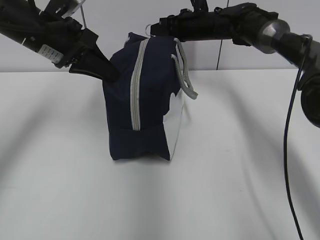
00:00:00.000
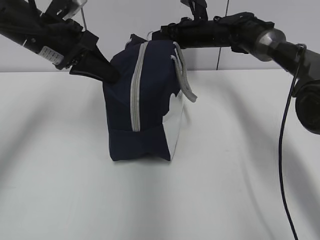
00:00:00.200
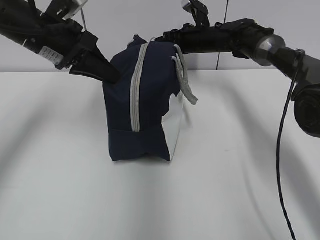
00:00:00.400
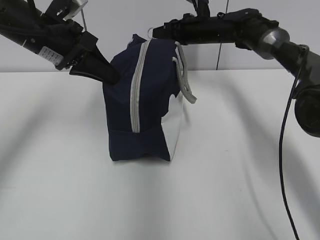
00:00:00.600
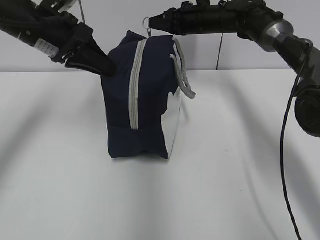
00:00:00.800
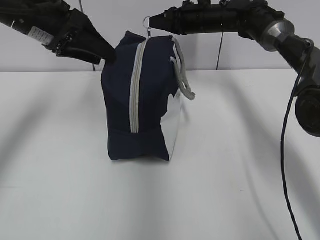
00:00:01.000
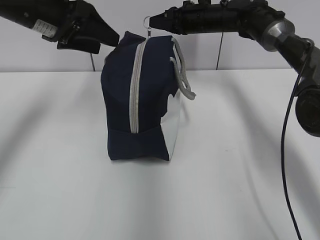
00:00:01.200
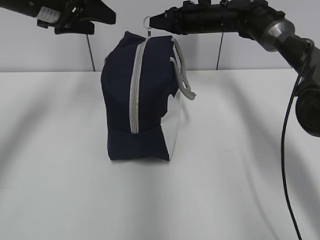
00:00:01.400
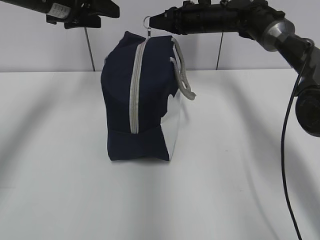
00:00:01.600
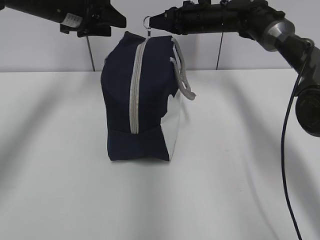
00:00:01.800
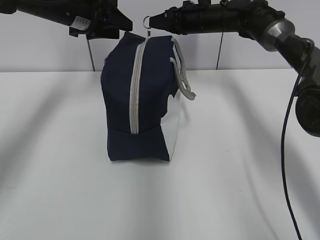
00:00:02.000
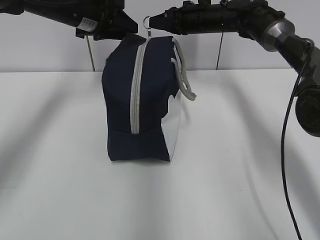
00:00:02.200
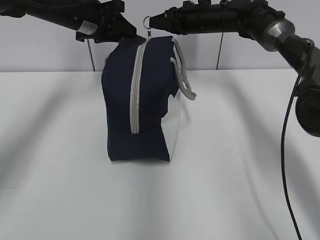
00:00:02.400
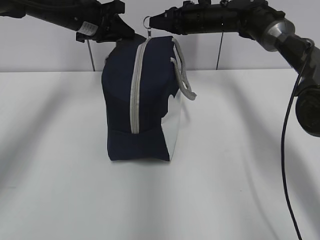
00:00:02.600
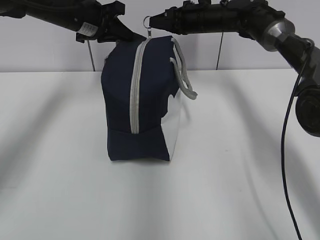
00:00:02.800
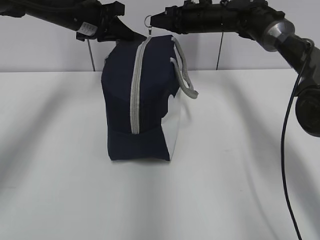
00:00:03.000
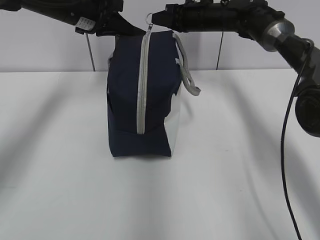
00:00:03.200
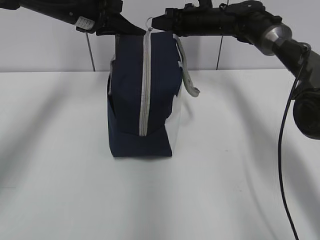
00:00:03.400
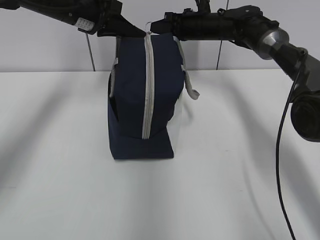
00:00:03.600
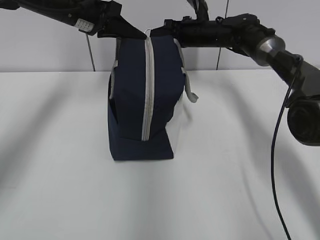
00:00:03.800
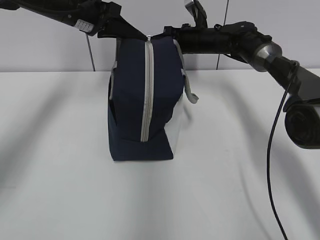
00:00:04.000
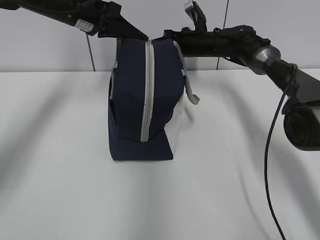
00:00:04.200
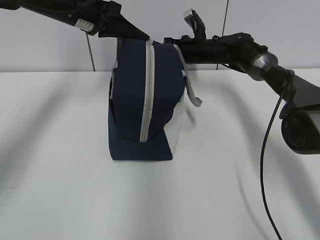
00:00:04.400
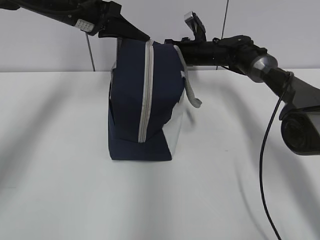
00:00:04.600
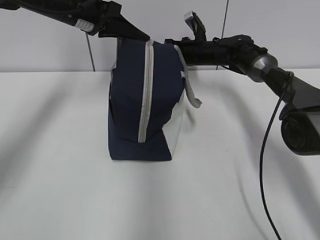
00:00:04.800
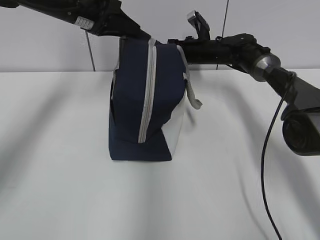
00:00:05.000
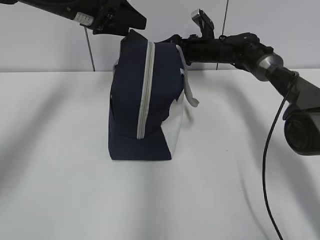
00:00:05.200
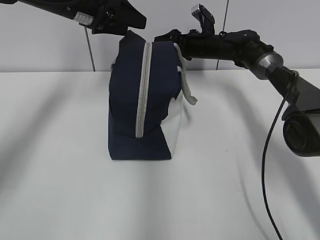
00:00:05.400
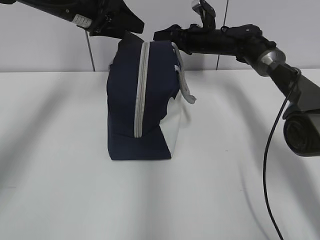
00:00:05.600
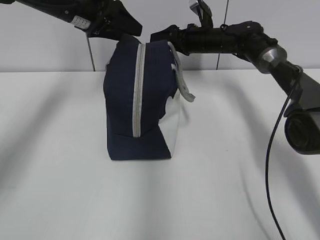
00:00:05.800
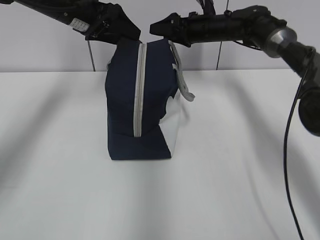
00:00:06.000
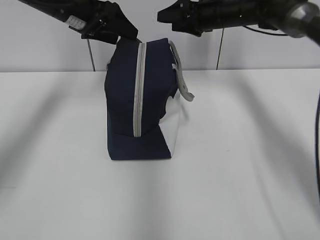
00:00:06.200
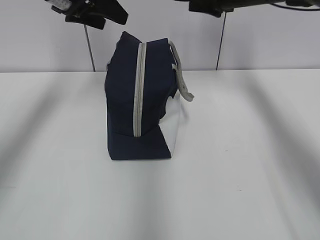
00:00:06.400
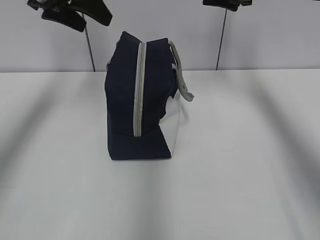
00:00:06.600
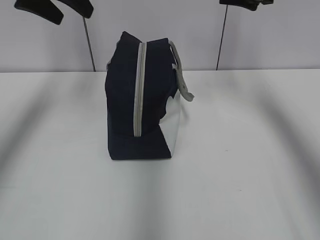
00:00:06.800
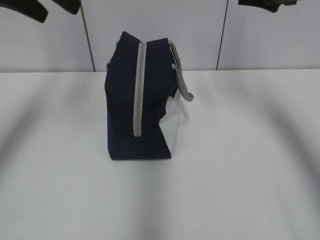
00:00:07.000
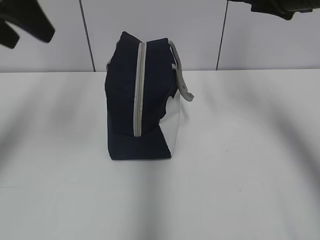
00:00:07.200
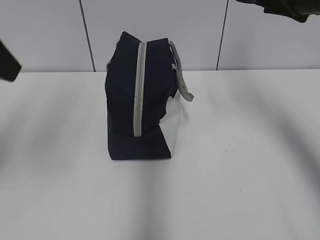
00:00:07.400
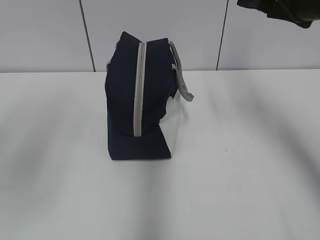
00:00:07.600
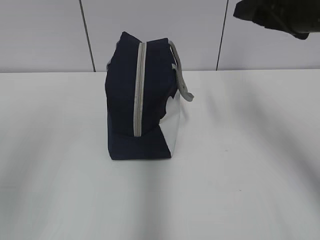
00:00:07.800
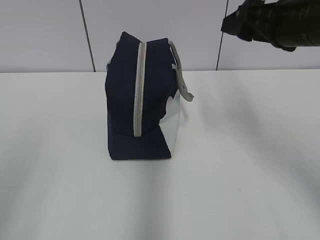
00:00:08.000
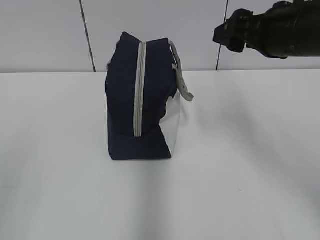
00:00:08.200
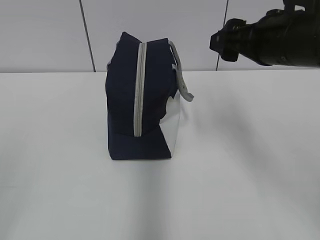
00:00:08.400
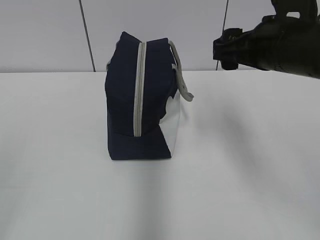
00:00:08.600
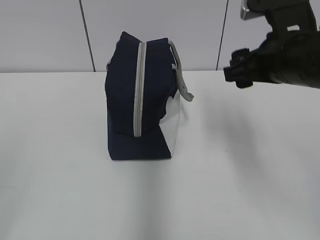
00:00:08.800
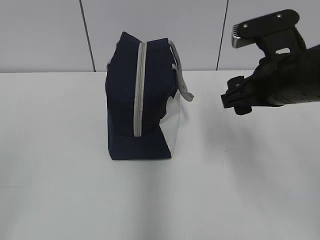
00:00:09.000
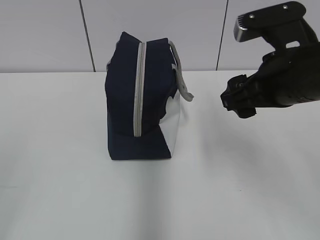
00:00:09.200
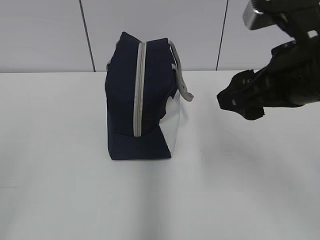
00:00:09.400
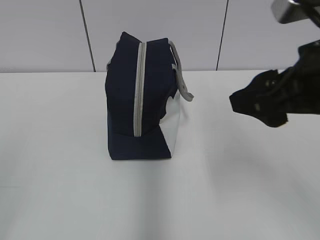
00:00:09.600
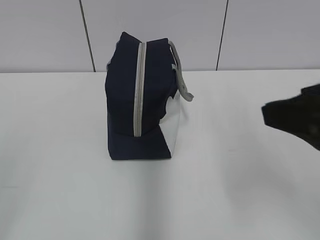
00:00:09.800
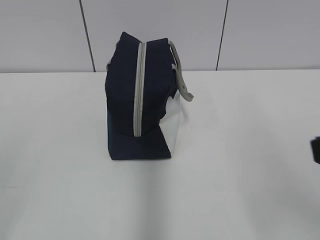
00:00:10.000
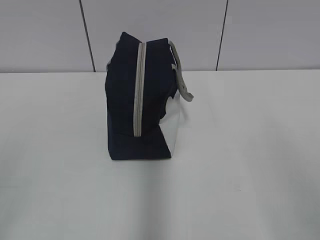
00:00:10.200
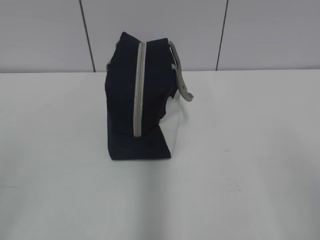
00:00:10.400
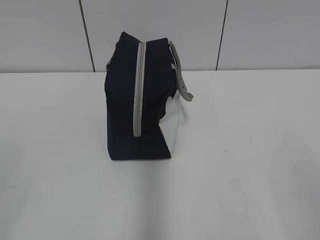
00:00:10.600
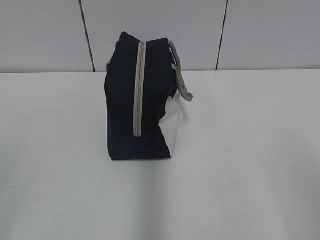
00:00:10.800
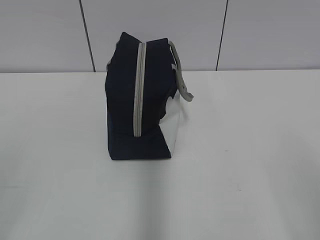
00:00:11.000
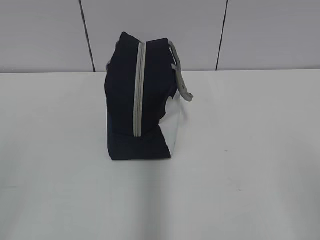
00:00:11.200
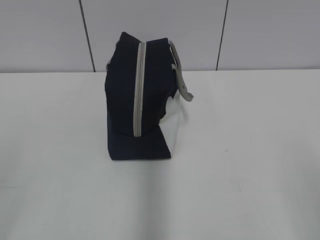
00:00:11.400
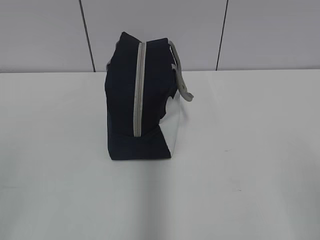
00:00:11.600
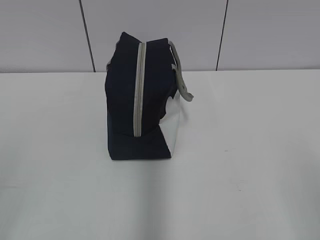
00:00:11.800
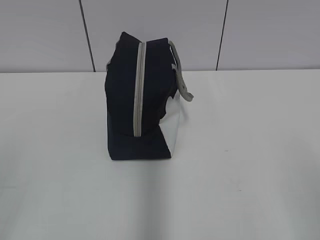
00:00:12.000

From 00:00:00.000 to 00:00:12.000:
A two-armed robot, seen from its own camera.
Step, from 00:00:00.000 to 00:00:04.800: Pull the zipper with your right hand.
Step, from 00:00:05.000 to 00:00:05.200: Grab the lunch bag with your left hand.
From 00:00:00.000 to 00:00:01.600: The left gripper shifts approximately 5 cm forward, and opens its fingers.
From 00:00:01.600 to 00:00:03.000: The left gripper shifts by approximately 5 cm, and closes up.
From 00:00:03.000 to 00:00:04.400: The right gripper heads downward, covering some 10 cm.
From 00:00:04.400 to 00:00:06.000: The right gripper travels upward by about 5 cm, and opens its fingers, while the left gripper opens.
From 00:00:06.000 to 00:00:07.600: The left gripper travels backward by approximately 30 cm; the right gripper moves backward and upward, approximately 25 cm.
From 00:00:07.600 to 00:00:09.000: The right gripper moves downward, to the left and backward, roughly 10 cm. The left gripper travels backward and downward by about 15 cm.
From 00:00:09.000 to 00:00:10.400: The right gripper moves backward, about 25 cm.

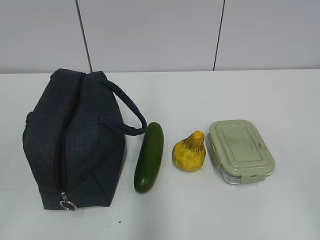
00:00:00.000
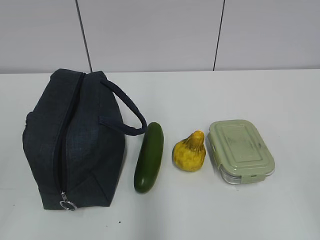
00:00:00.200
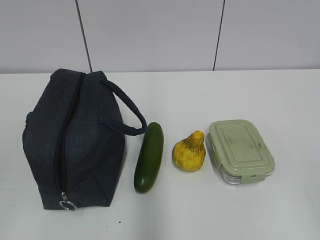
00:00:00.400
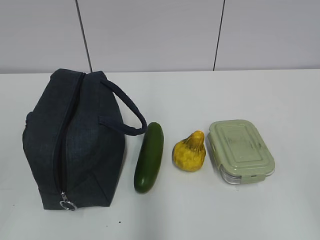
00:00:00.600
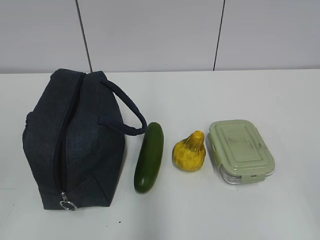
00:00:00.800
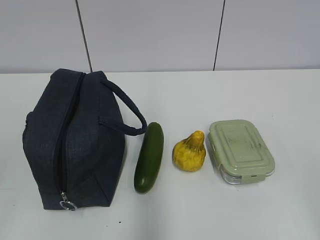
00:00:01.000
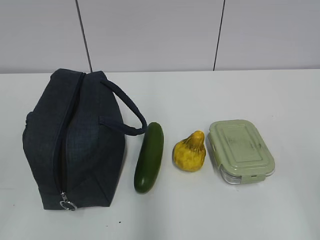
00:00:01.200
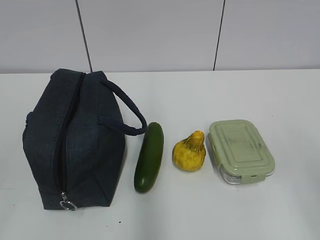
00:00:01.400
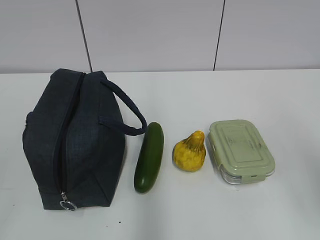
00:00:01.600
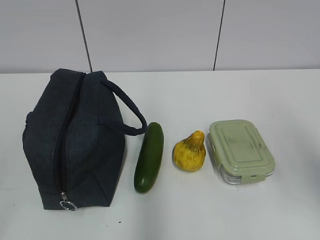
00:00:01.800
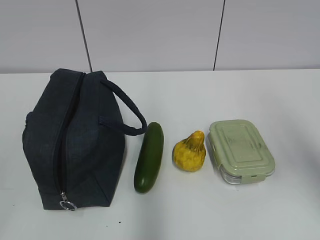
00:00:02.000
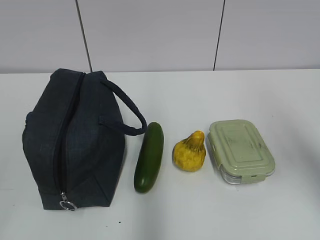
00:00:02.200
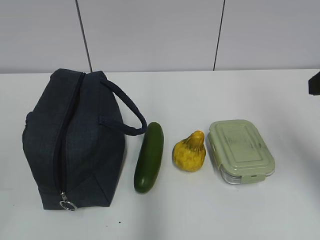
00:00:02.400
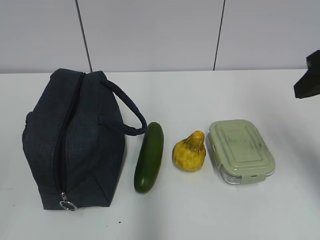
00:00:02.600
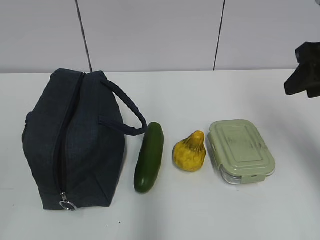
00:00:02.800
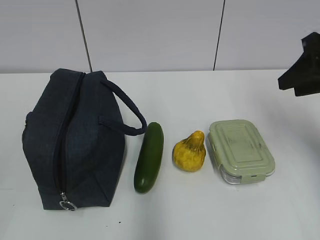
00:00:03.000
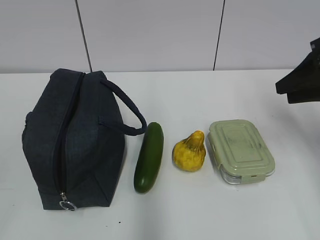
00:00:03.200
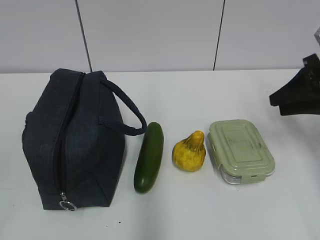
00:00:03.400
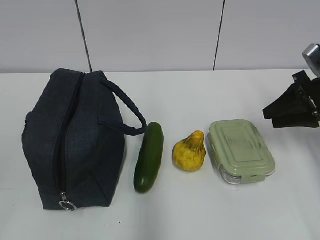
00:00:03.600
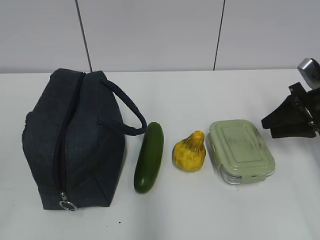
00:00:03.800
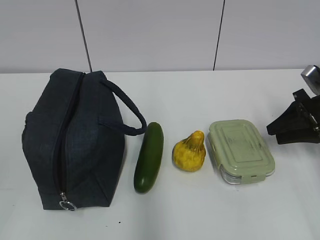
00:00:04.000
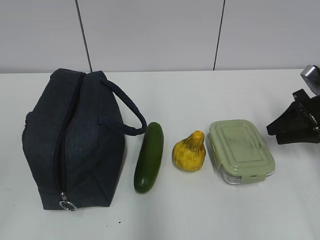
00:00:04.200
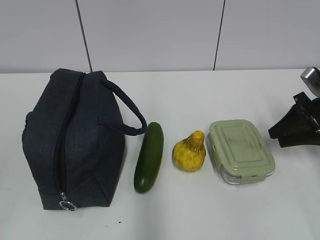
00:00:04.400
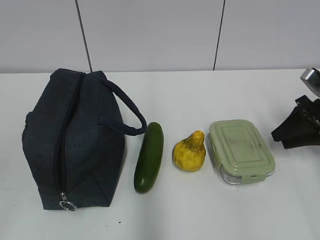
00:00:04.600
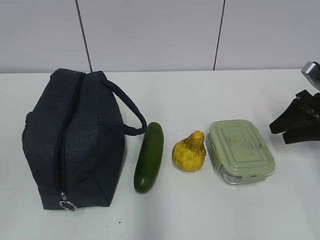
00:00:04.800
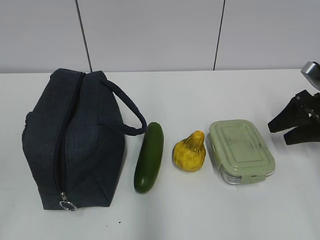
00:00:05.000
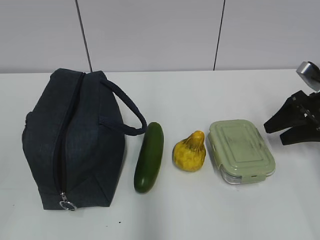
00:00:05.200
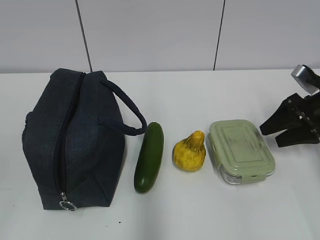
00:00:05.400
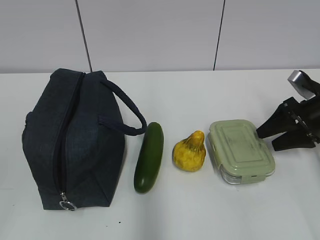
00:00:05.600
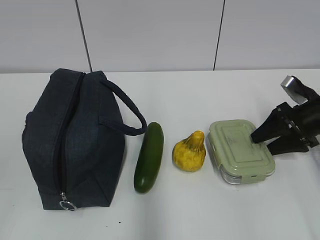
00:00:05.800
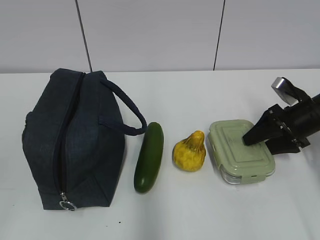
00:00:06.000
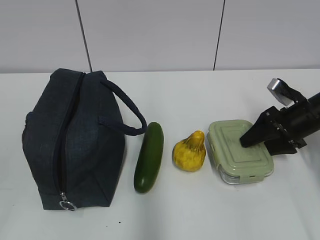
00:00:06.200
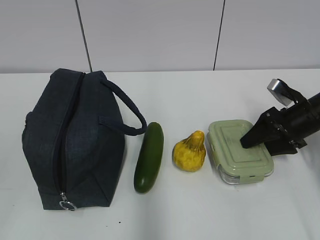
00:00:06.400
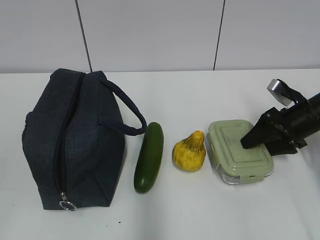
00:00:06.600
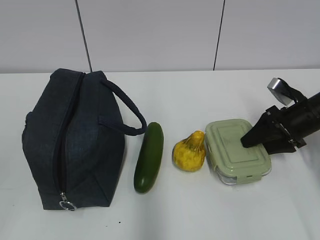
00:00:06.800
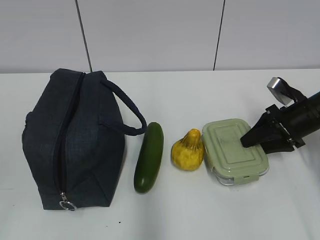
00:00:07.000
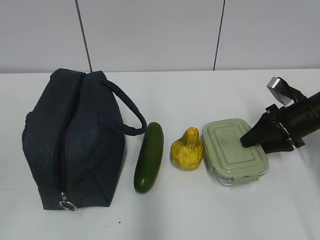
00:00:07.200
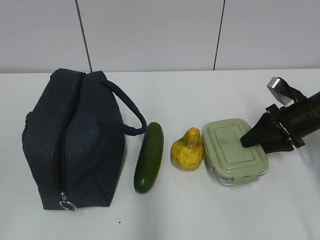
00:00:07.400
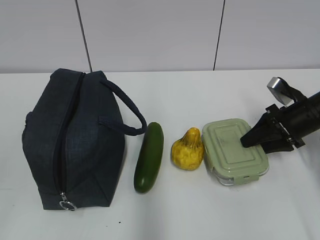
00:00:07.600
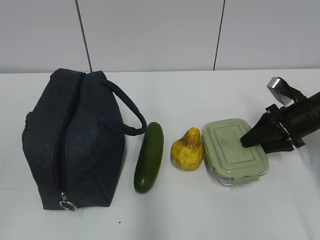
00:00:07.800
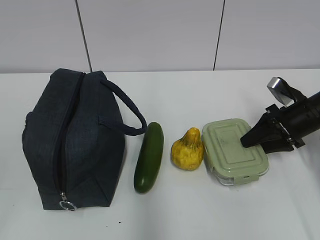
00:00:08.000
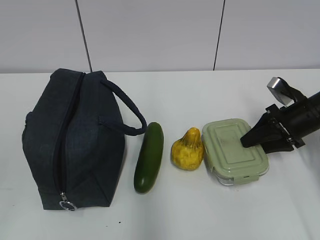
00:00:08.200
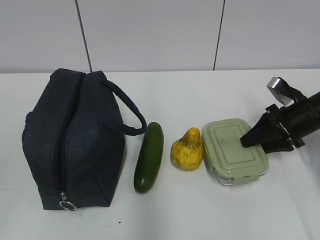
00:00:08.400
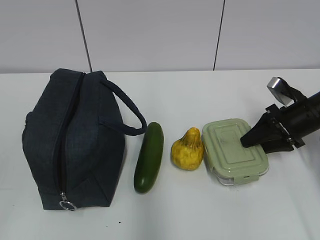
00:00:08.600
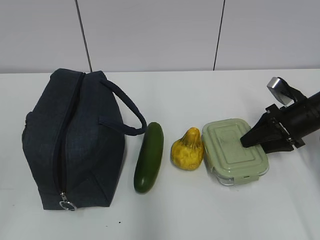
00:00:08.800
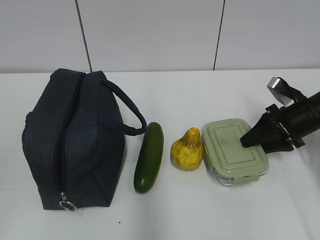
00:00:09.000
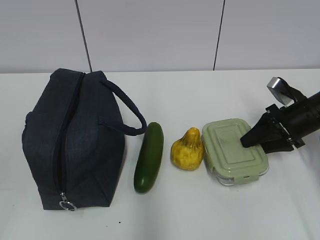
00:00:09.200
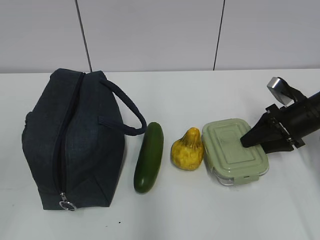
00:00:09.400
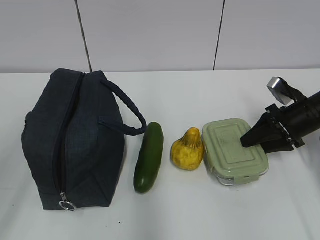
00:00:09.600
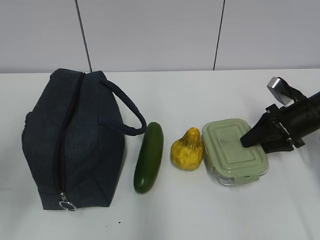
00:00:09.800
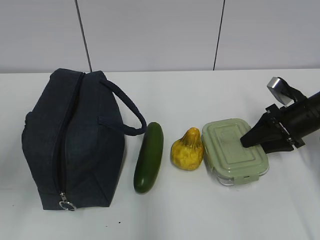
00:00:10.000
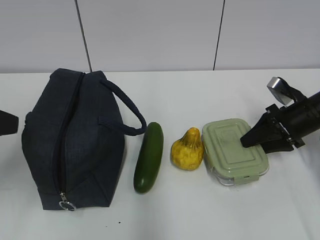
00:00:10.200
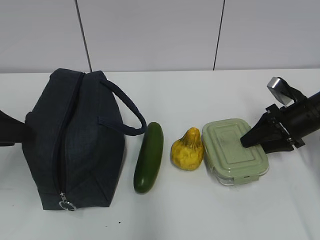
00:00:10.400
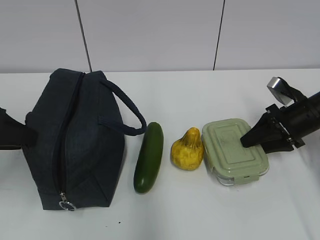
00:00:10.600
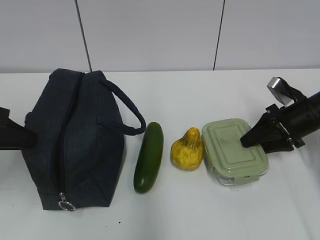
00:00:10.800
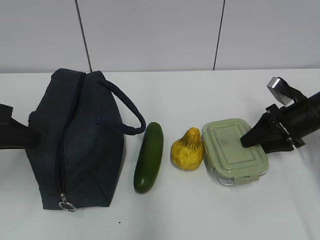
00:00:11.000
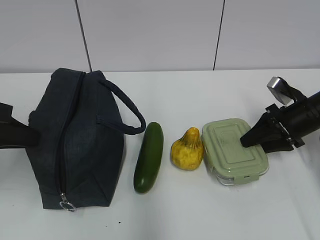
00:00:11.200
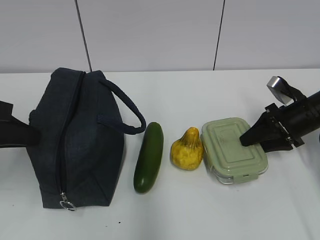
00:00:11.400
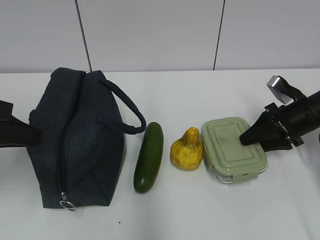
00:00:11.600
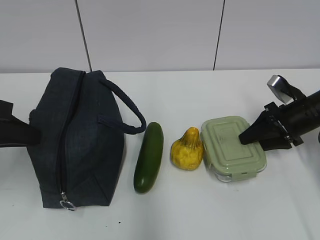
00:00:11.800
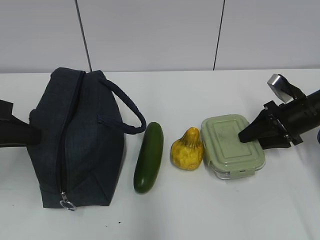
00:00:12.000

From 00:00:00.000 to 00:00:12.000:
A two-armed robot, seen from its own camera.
Step, from 00:00:00.000 to 00:00:07.800: Grab the lunch box with your right hand.
From 00:00:01.600 to 00:00:03.000: The right gripper travels forward by about 20 cm, and closes its fingers.
From 00:00:03.000 to 00:00:04.400: The right gripper is displaced downward and to the right by roughly 15 cm.
From 00:00:04.400 to 00:00:06.000: The right gripper opens up.
From 00:00:06.000 to 00:00:09.000: Both grippers stay about where they are.
From 00:00:09.000 to 00:00:10.400: The left gripper goes roughly 20 cm forward.
From 00:00:10.400 to 00:00:12.000: The left gripper closes.
